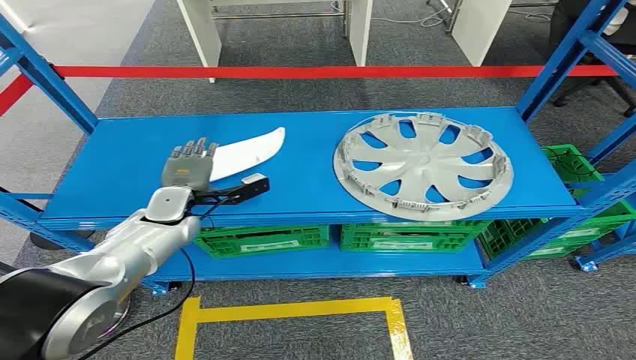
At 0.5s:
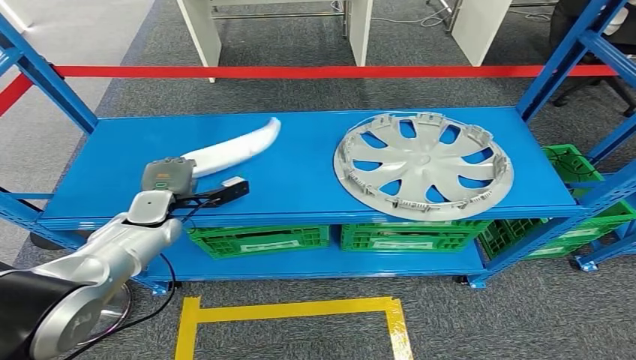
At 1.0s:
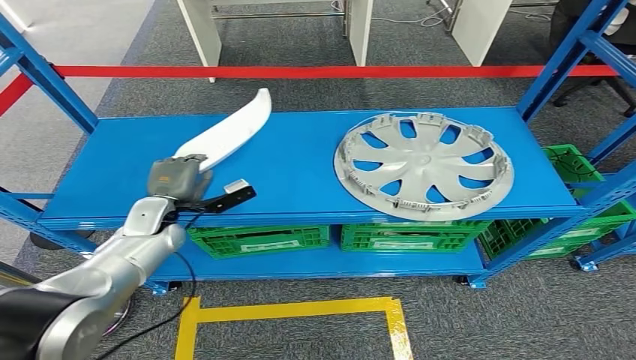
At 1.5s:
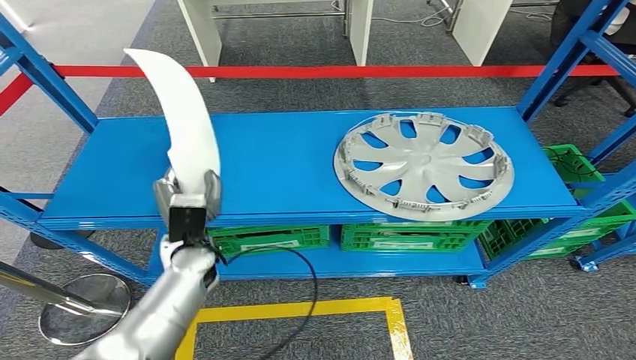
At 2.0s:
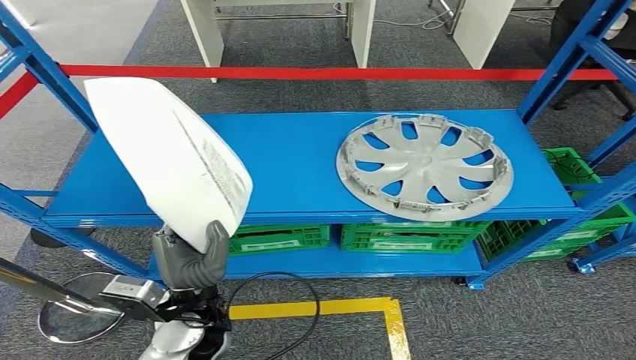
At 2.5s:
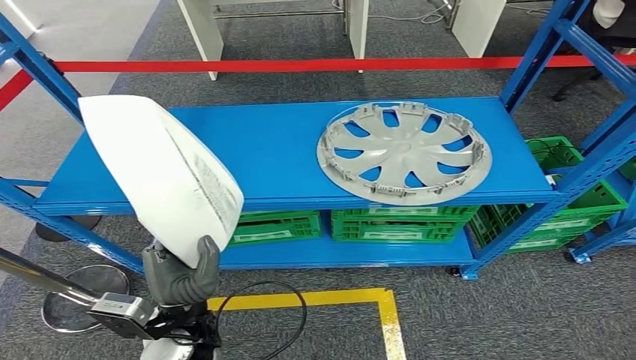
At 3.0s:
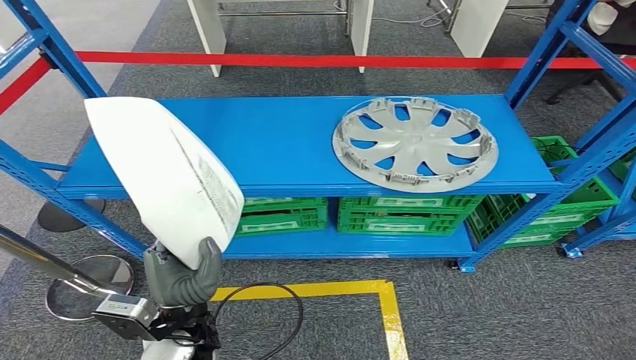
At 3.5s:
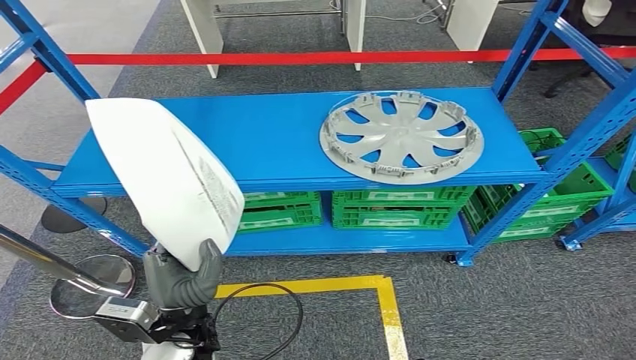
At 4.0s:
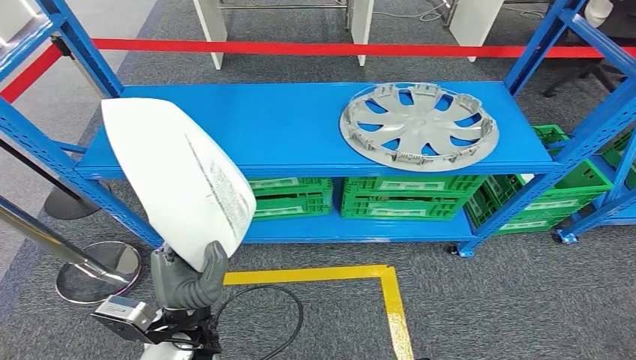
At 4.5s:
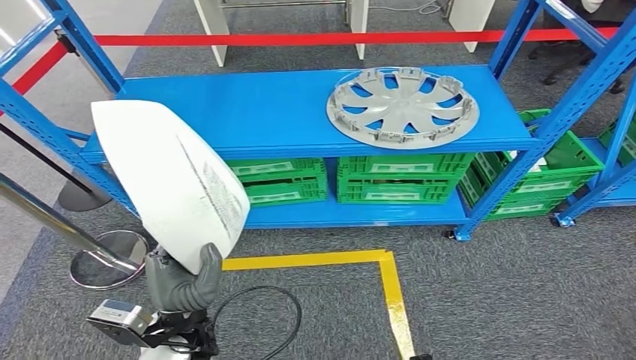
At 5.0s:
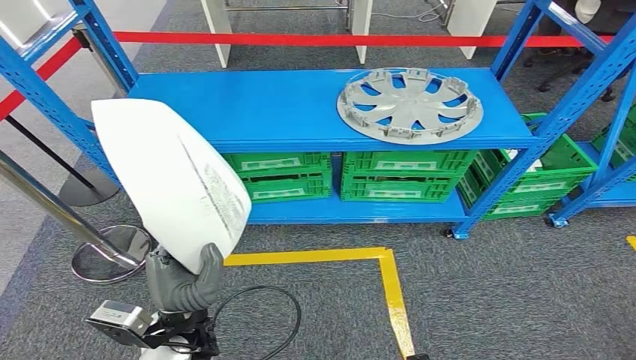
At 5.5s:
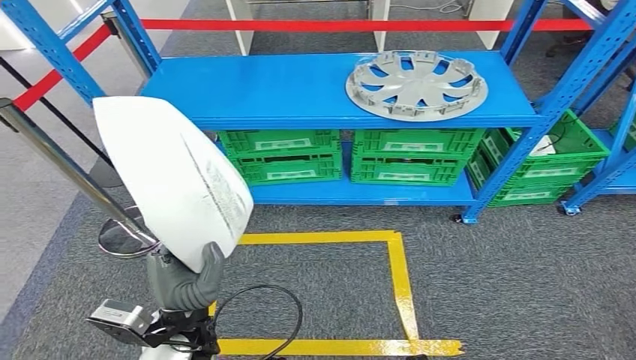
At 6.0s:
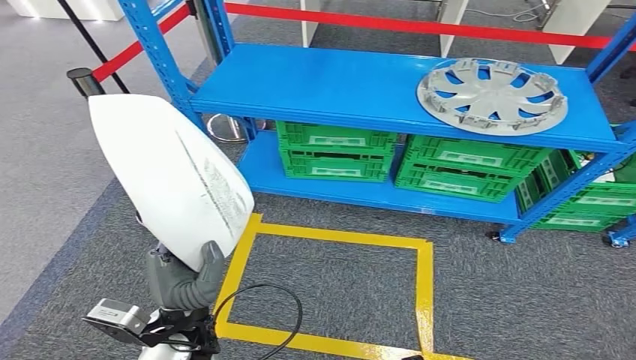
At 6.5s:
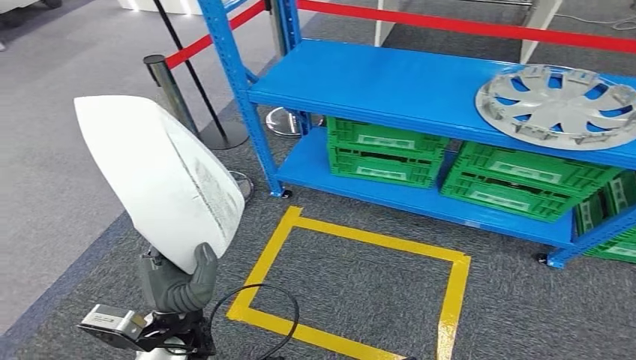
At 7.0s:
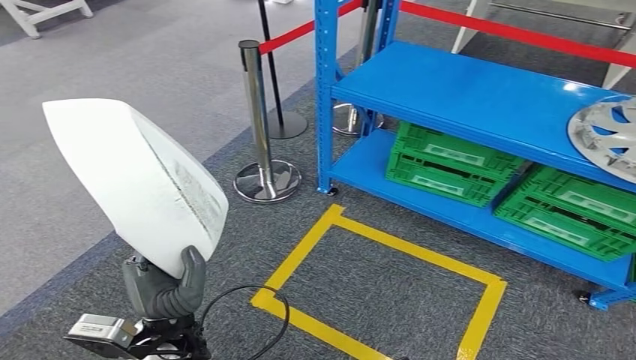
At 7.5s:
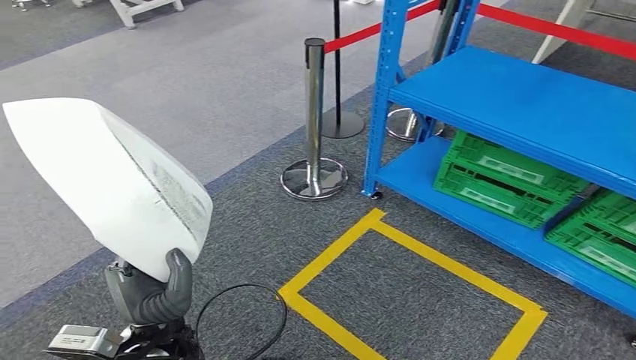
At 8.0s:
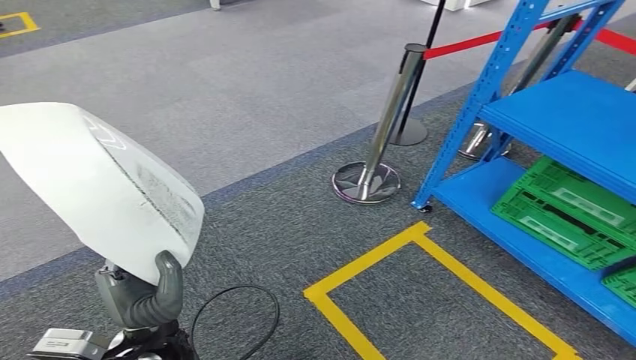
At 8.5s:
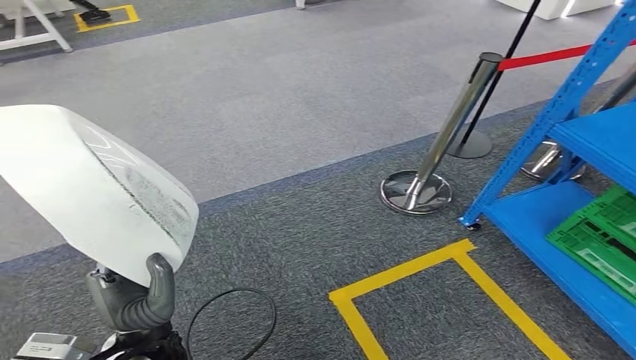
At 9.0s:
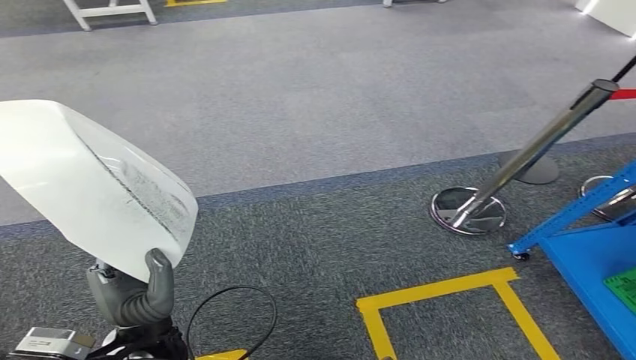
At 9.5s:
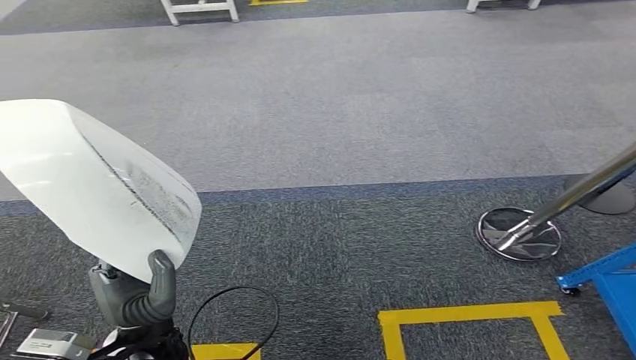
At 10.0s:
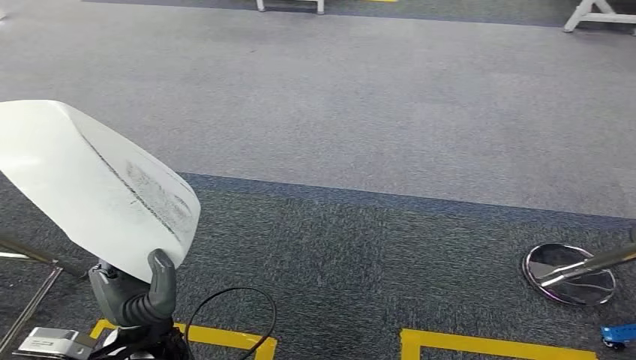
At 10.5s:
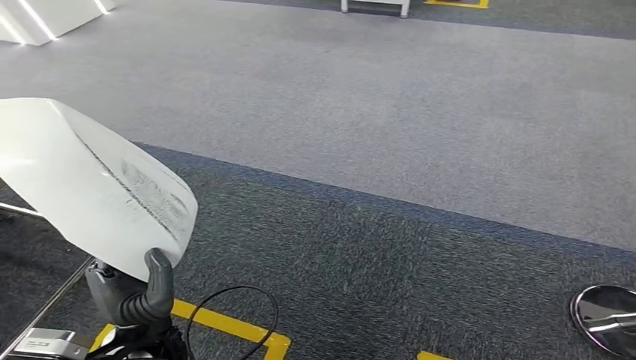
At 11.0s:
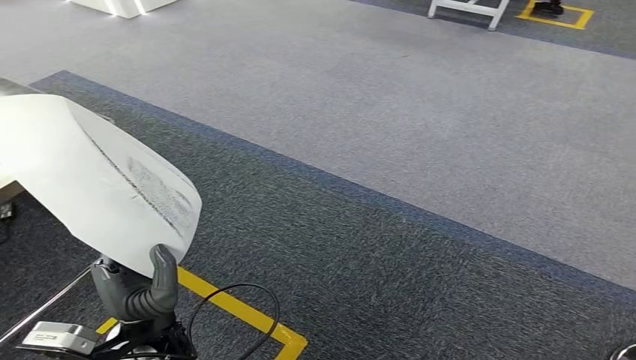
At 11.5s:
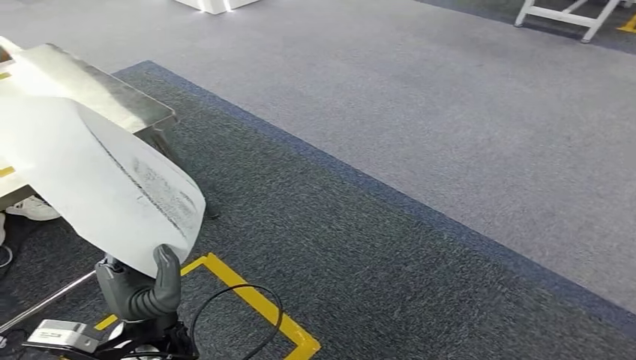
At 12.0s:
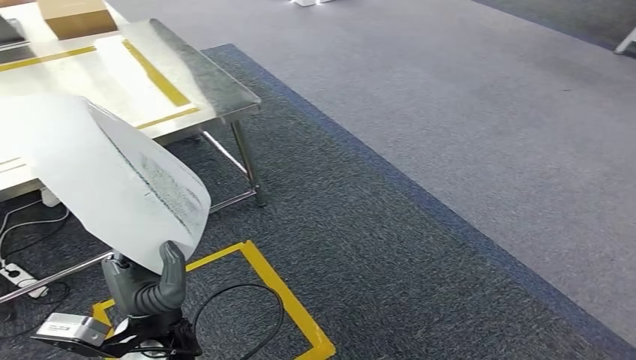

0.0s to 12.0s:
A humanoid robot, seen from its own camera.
Step, 0.0s to 5.0s: Pick up the small component from the shelf.

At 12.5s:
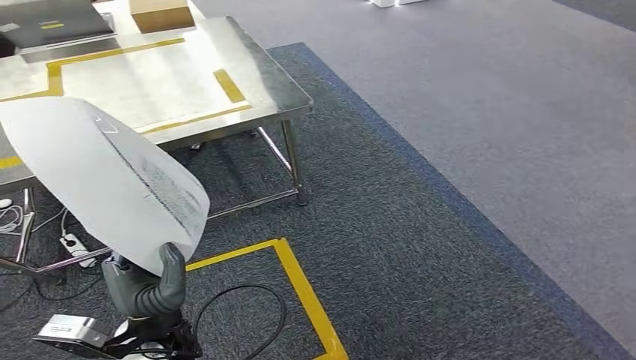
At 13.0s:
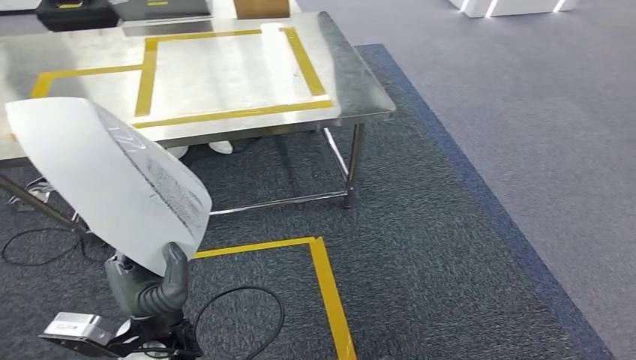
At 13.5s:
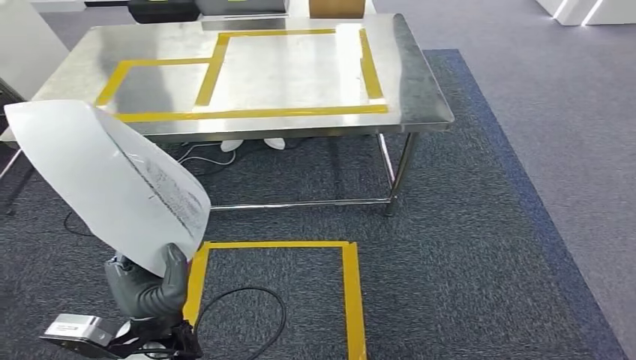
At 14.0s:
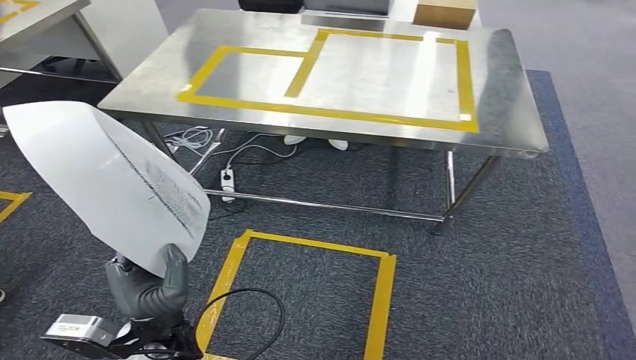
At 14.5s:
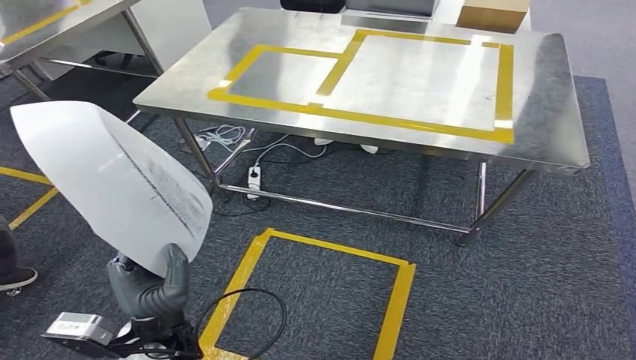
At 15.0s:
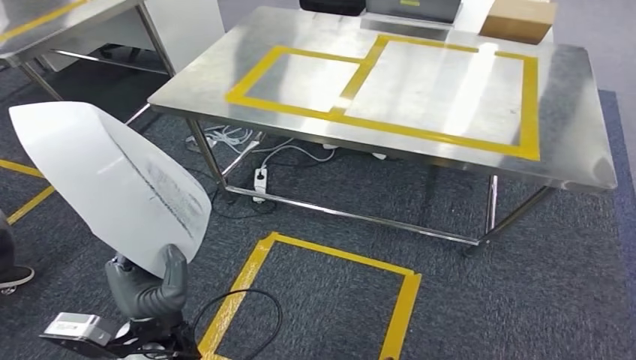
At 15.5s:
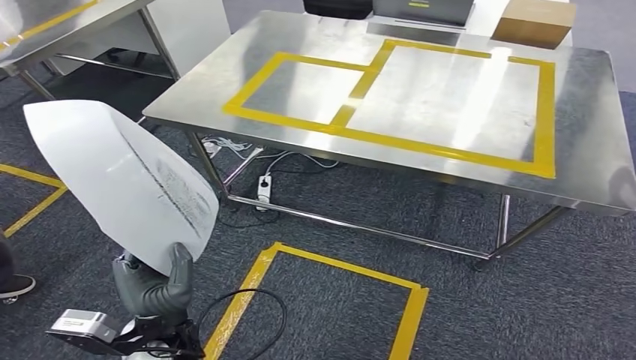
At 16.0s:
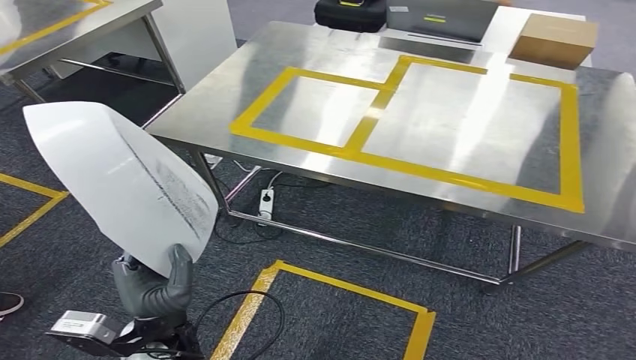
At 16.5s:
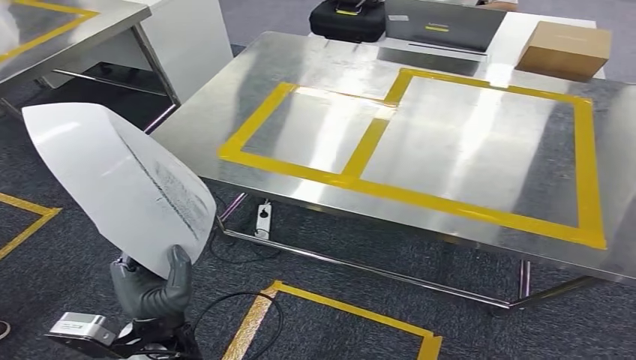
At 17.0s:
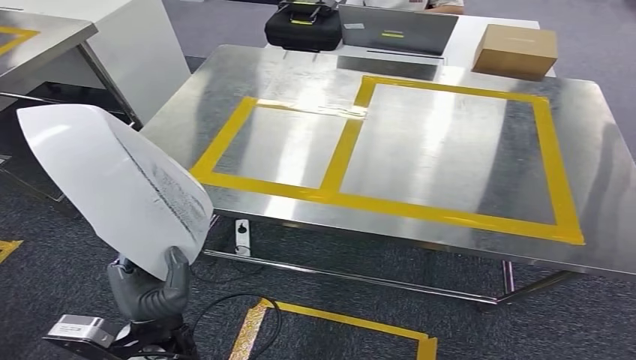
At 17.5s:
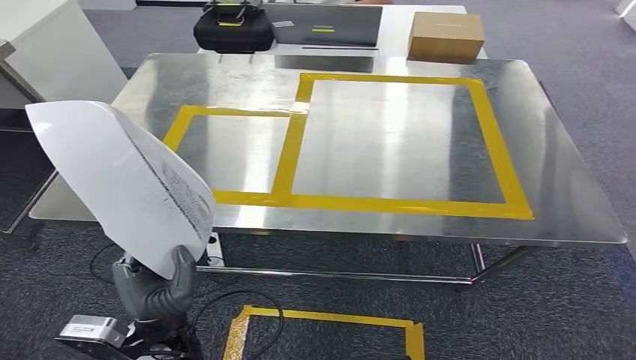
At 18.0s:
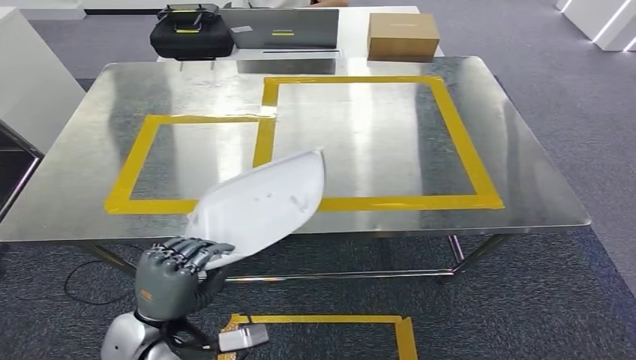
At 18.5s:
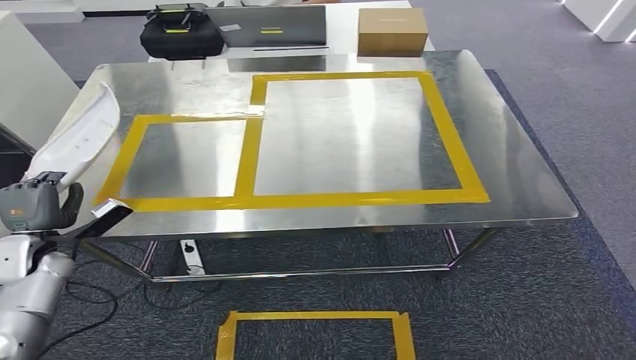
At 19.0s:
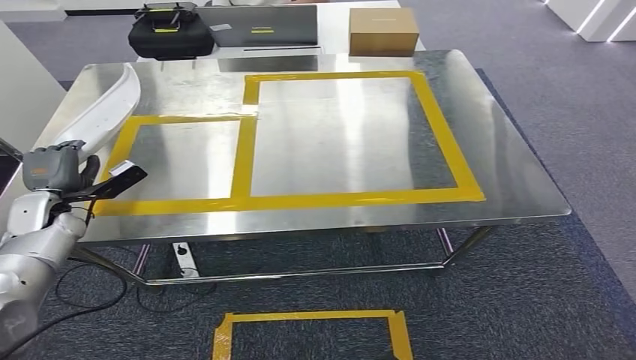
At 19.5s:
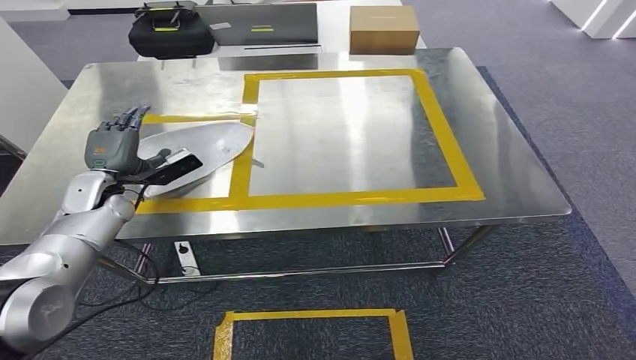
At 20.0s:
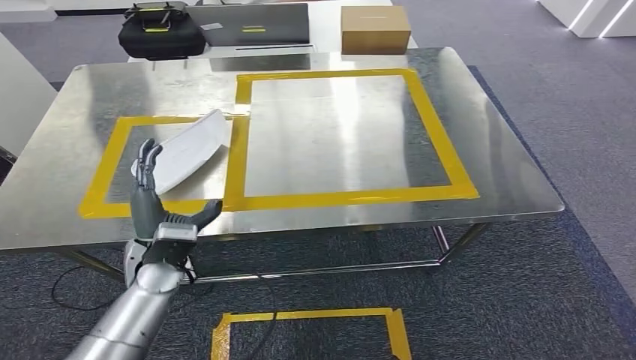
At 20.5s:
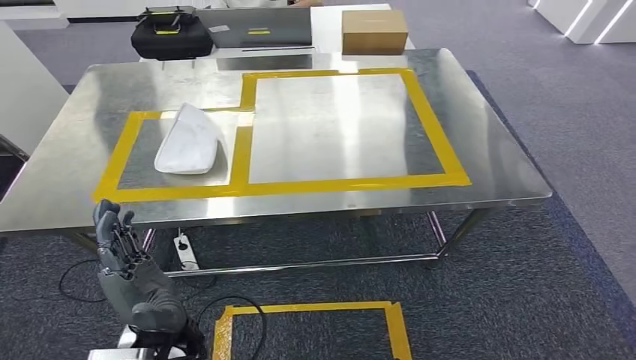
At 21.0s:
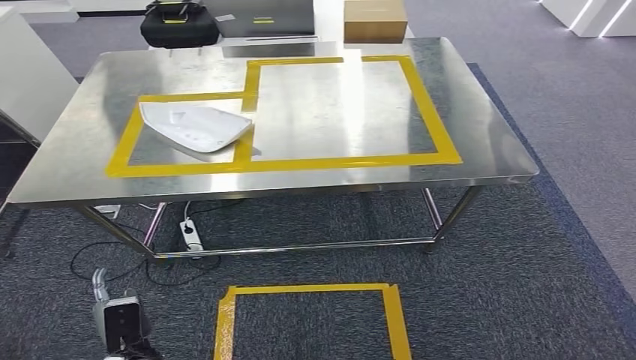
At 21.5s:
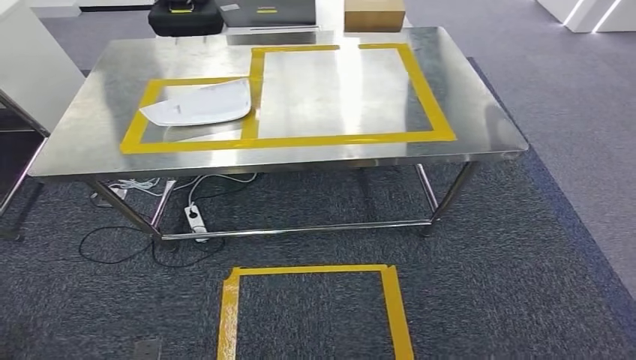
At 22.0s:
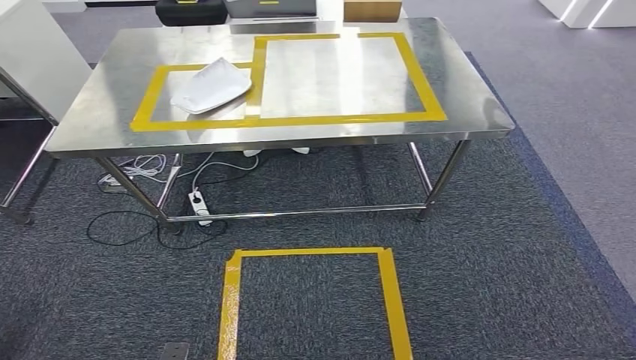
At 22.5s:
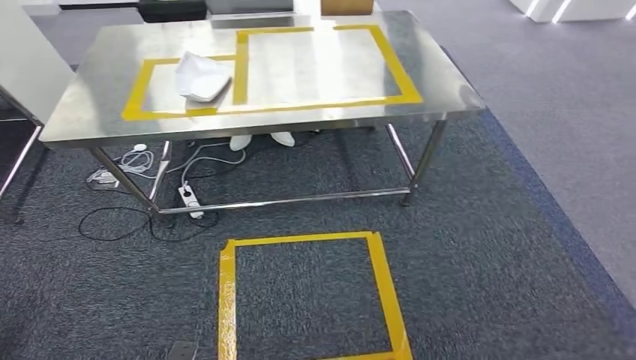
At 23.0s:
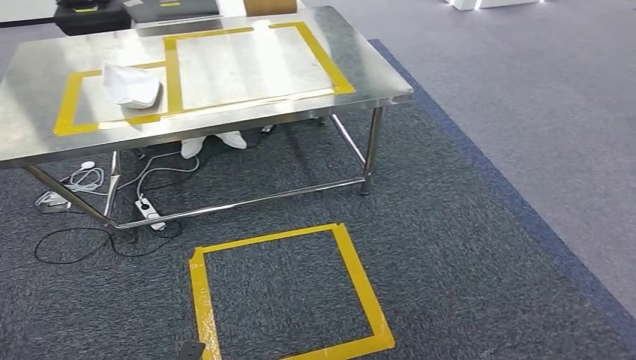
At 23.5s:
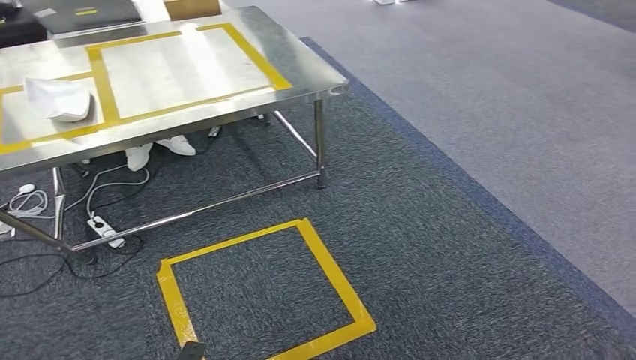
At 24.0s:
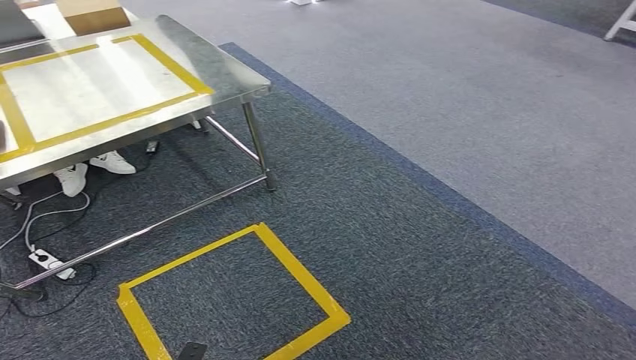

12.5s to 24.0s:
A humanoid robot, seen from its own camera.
Step, 12.5s to 17.0s: Move the small component to the workbench.
Step, 17.5s to 20.5s: Insert the small component into the corresponding slot on the workbench.
